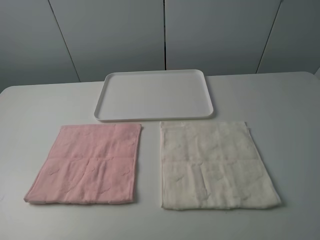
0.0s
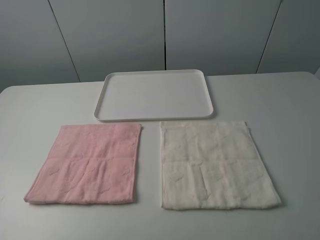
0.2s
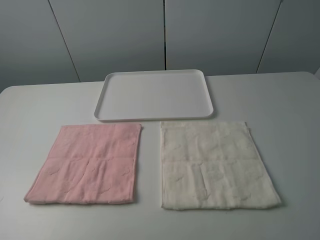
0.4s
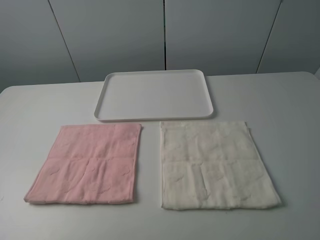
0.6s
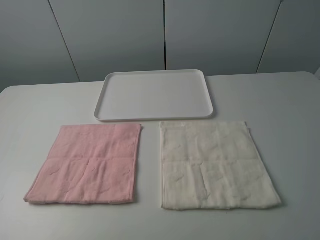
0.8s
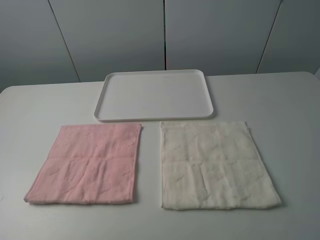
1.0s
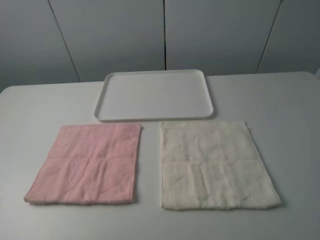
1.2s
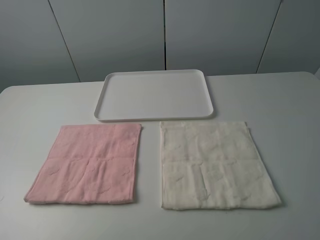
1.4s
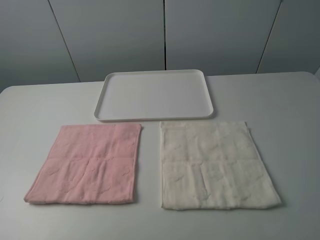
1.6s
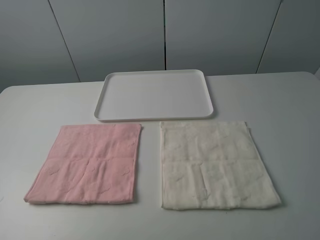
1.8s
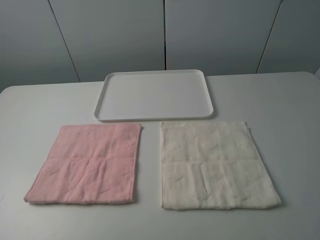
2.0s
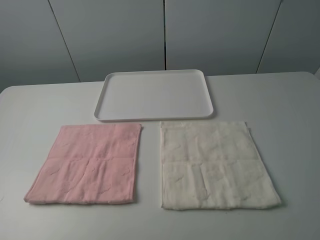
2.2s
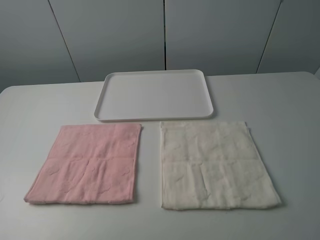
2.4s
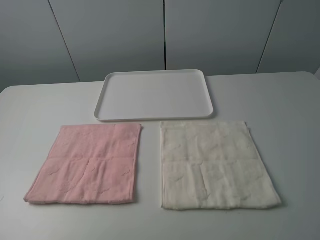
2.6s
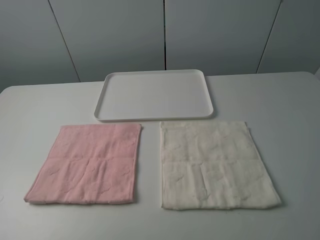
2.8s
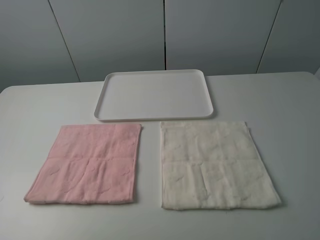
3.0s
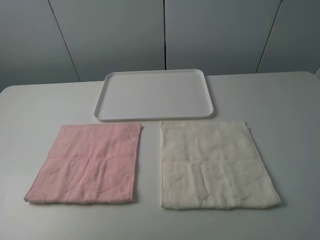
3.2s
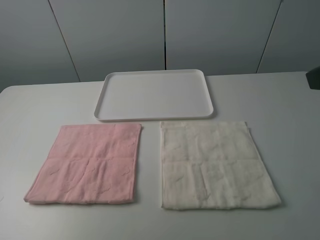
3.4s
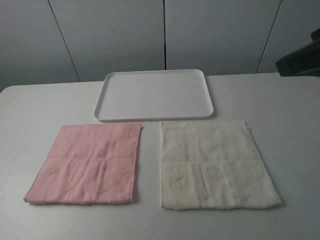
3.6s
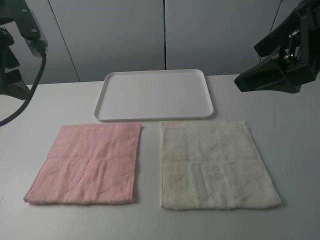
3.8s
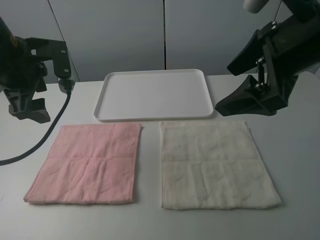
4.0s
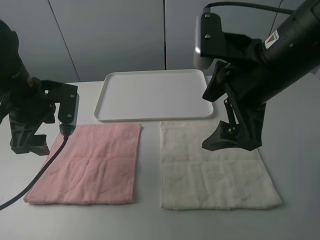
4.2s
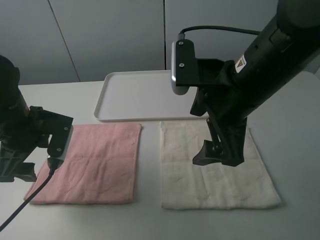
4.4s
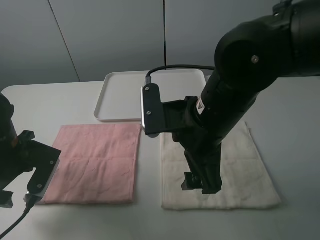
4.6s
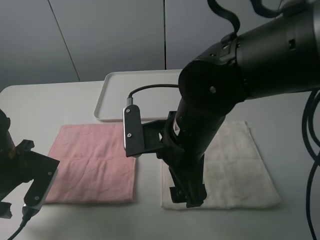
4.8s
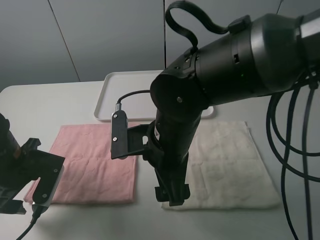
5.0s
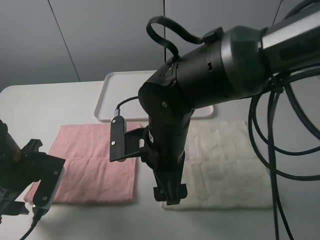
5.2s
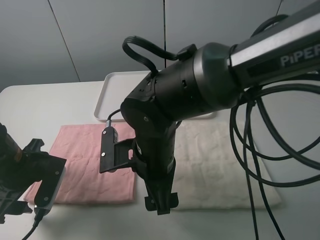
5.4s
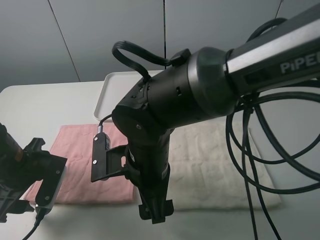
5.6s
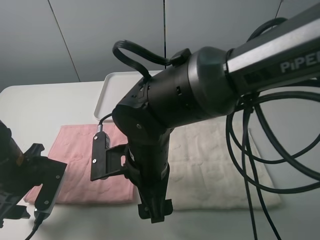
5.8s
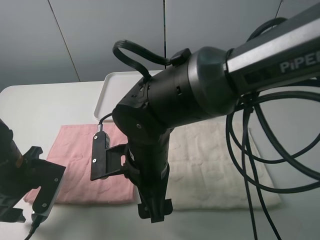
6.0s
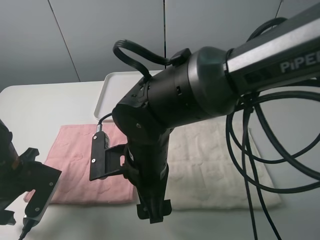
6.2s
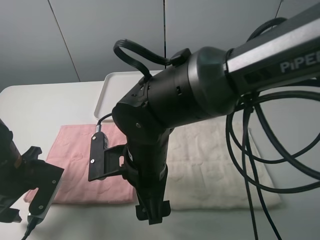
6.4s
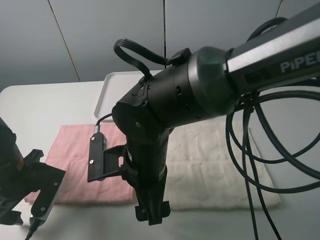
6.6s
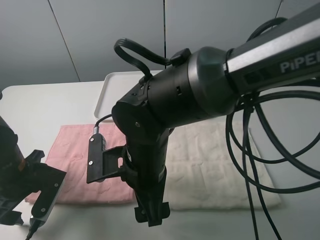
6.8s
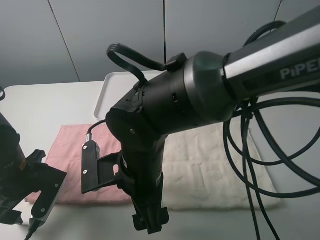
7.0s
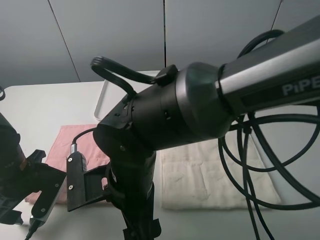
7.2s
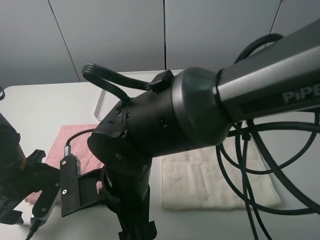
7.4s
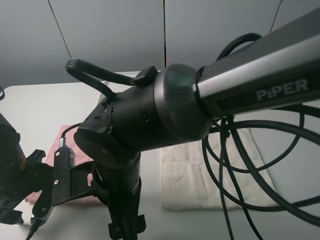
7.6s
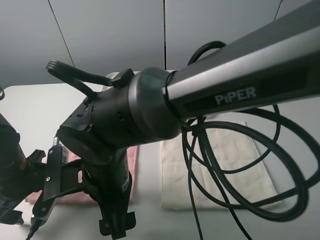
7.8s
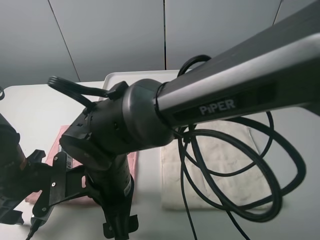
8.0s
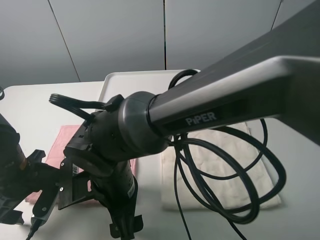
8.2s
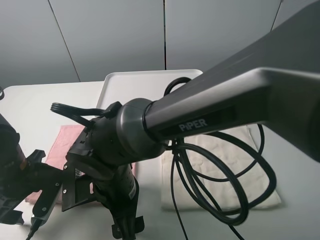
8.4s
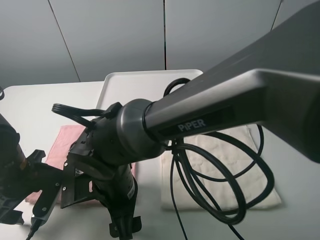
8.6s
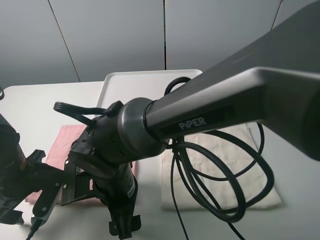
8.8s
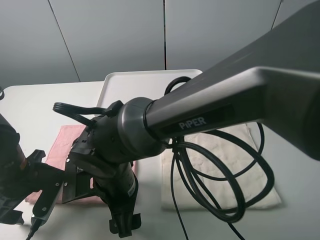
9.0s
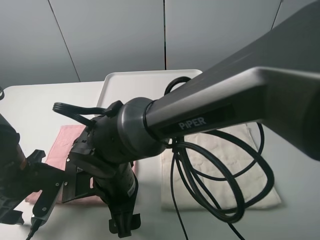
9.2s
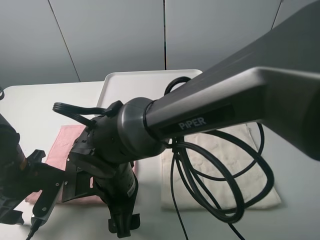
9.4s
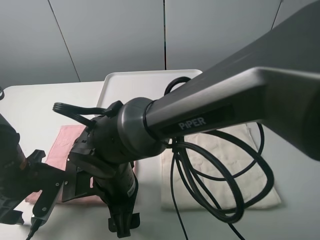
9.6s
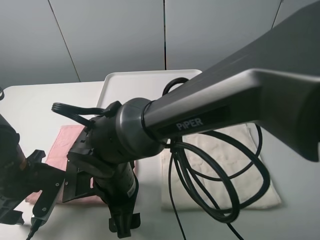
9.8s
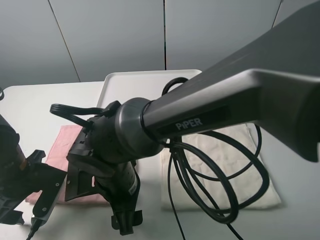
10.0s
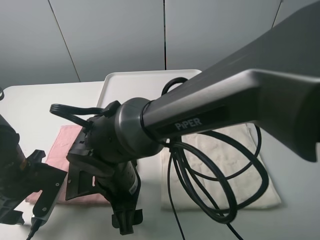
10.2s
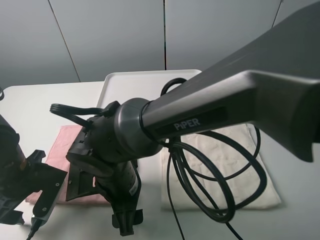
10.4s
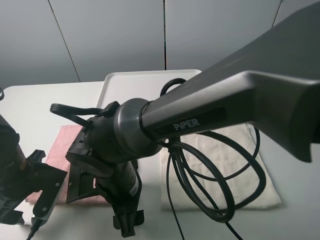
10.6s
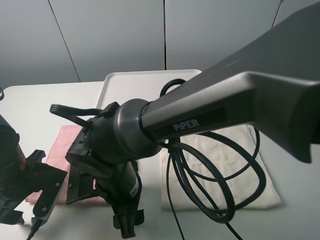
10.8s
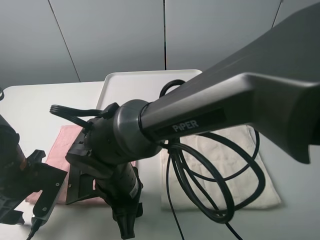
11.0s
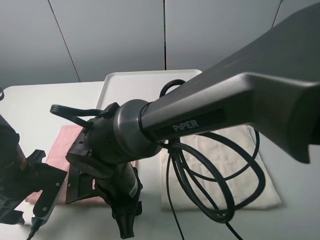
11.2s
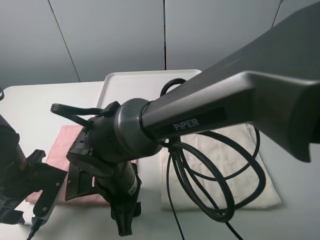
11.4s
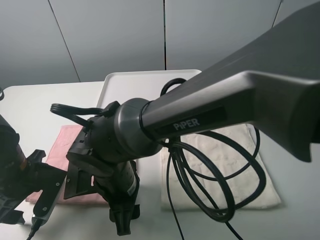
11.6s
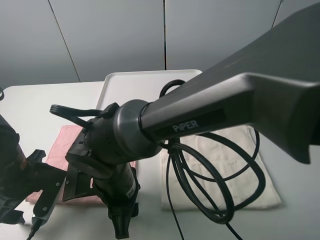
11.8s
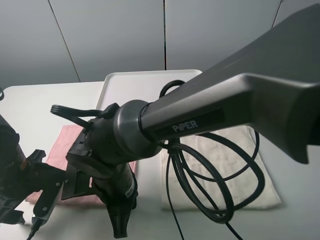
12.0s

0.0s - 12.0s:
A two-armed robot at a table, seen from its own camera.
Task of the whole recording: fold one of the towels by two grippers and place it on the tray,then fold another towel by two grippers and place it on the folded towel.
0.0s - 1.6s: The two grippers keep their place.
3.0s - 4.4s: The right gripper travels to the left, forward and downward by approximately 25 cm; the left gripper heads forward and downward, covering roughly 25 cm.
4.4s - 6.0s: The left gripper heads downward, covering about 5 cm, while the right gripper moves to the left and downward, roughly 15 cm.
6.0s - 7.6s: The right gripper changes place by some 5 cm.
7.6s - 9.0s: The right gripper moves approximately 5 cm.
9.0s - 10.4s: The grippers move only a little.
10.4s - 12.0s: The right gripper closes.

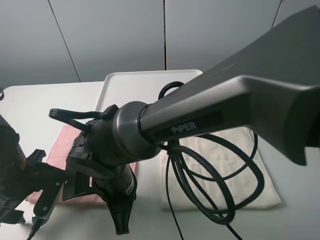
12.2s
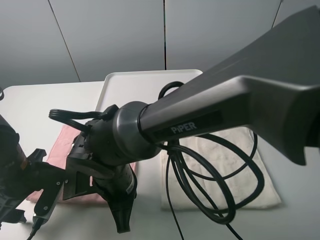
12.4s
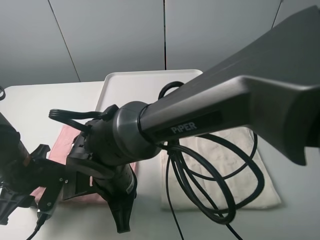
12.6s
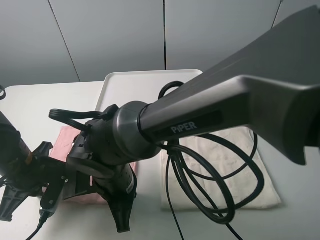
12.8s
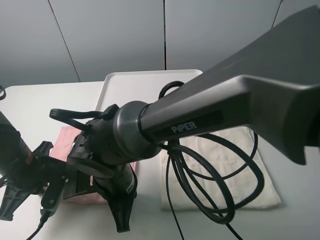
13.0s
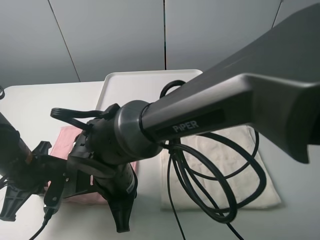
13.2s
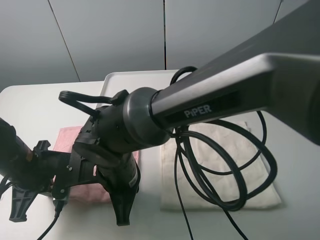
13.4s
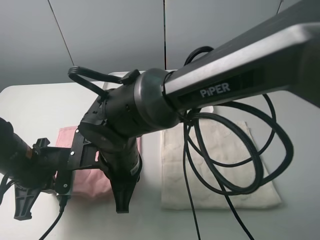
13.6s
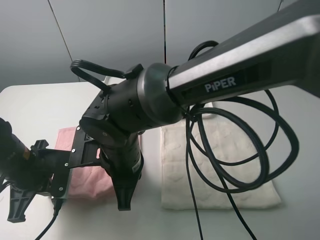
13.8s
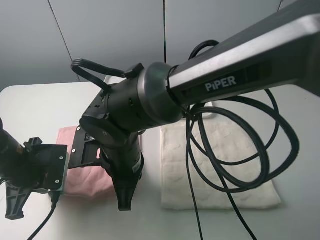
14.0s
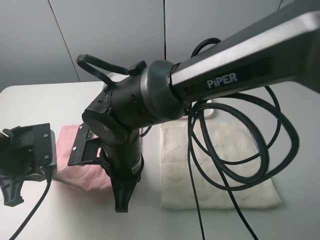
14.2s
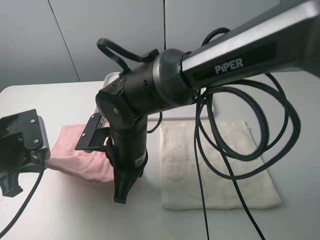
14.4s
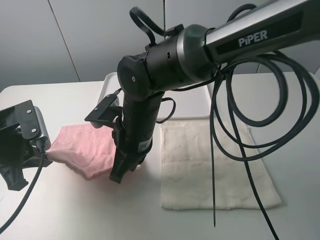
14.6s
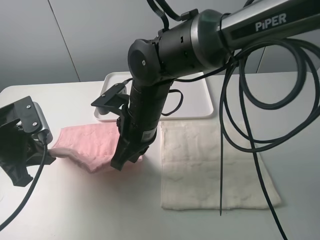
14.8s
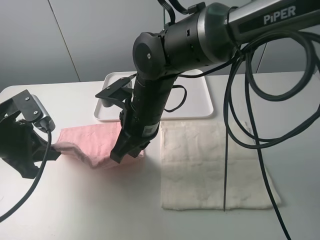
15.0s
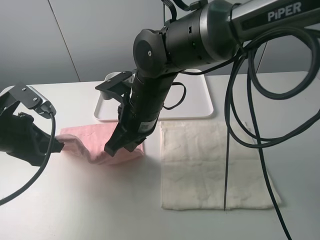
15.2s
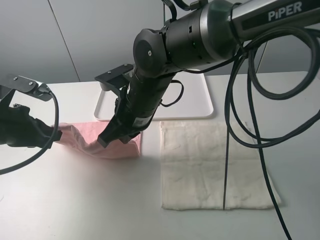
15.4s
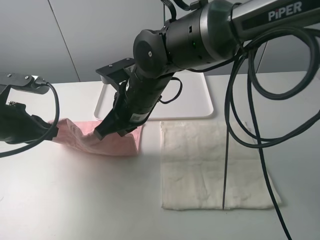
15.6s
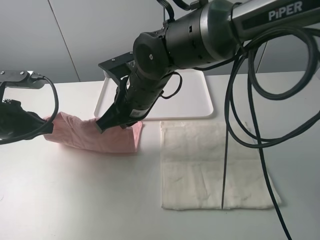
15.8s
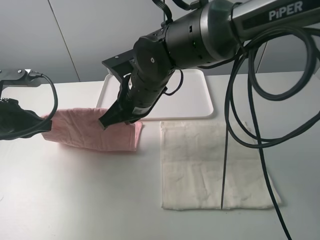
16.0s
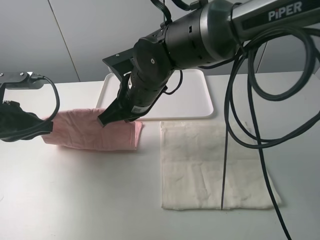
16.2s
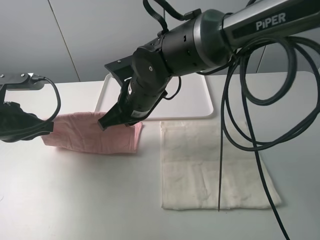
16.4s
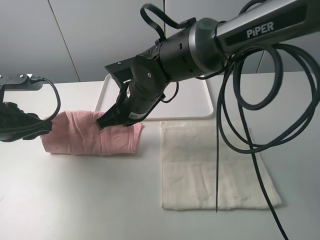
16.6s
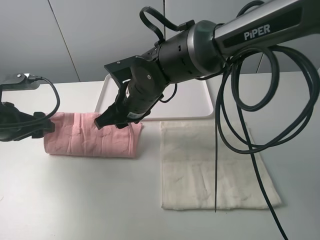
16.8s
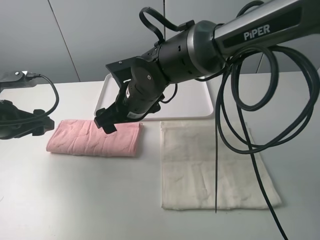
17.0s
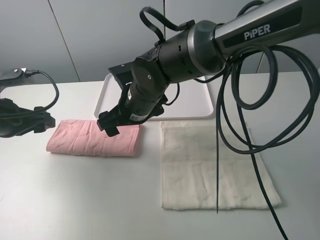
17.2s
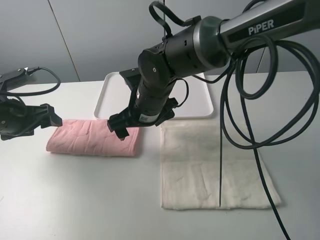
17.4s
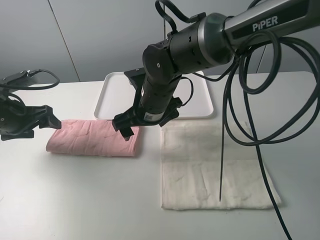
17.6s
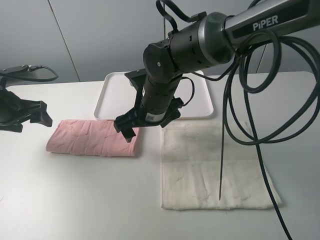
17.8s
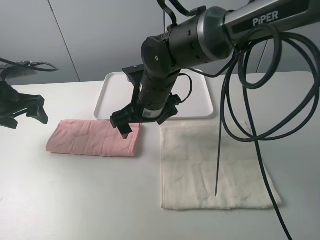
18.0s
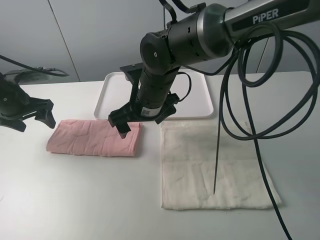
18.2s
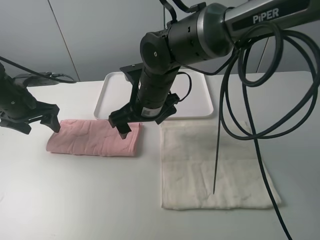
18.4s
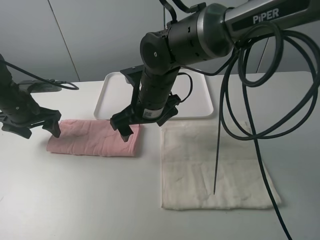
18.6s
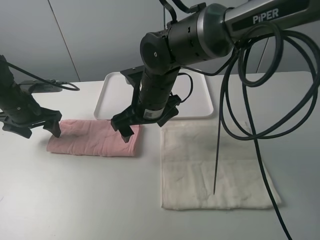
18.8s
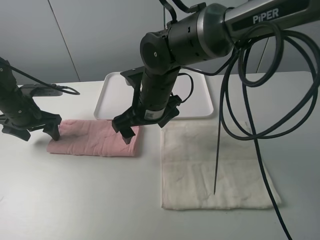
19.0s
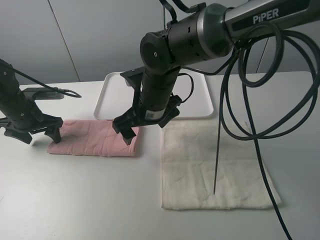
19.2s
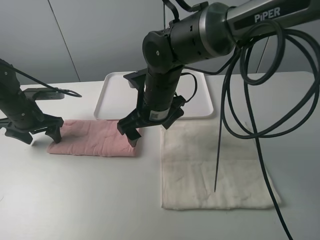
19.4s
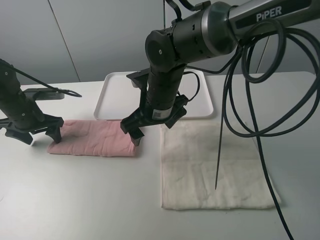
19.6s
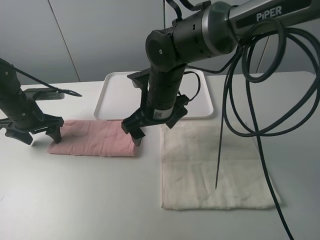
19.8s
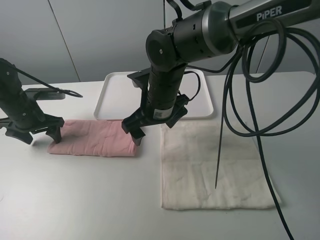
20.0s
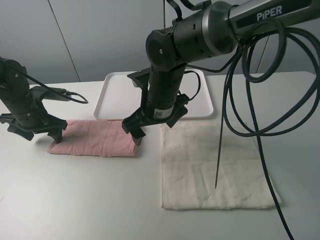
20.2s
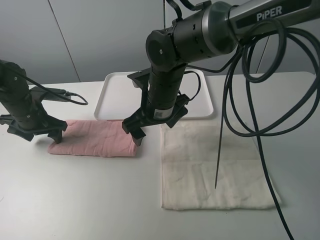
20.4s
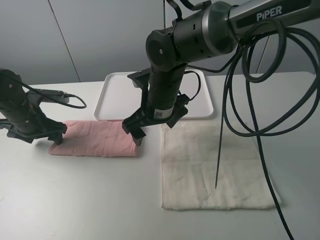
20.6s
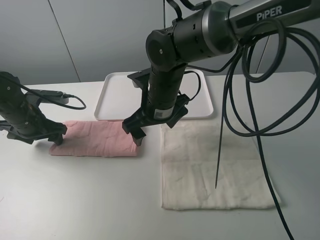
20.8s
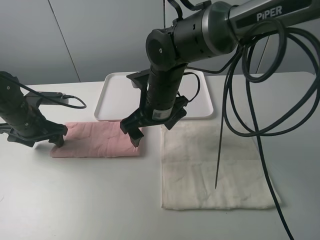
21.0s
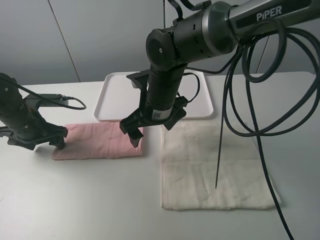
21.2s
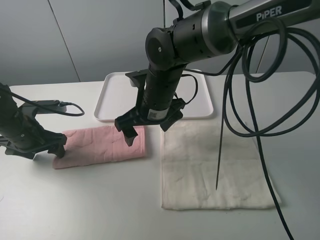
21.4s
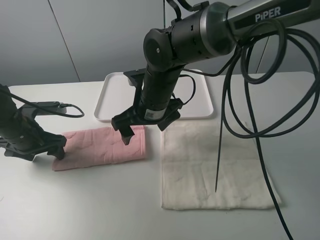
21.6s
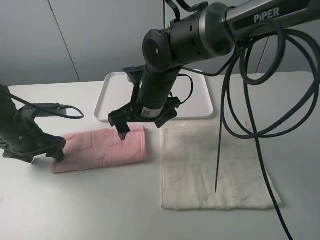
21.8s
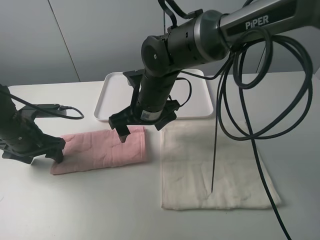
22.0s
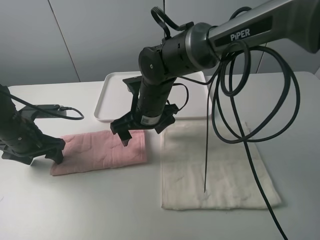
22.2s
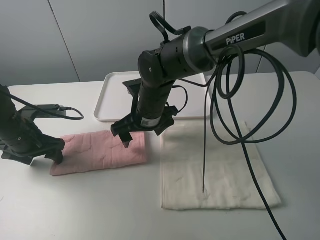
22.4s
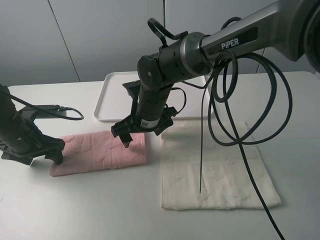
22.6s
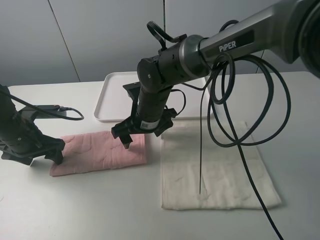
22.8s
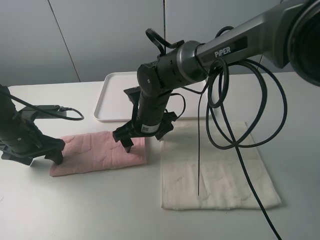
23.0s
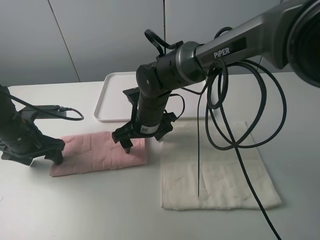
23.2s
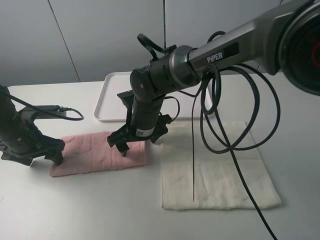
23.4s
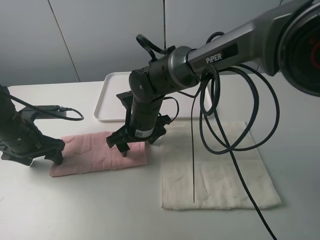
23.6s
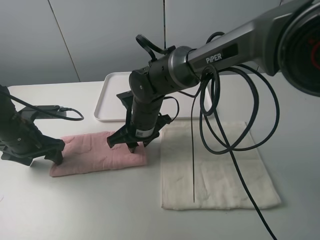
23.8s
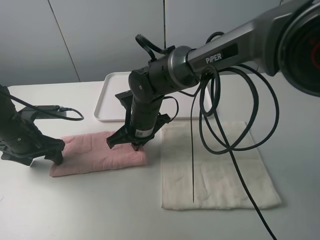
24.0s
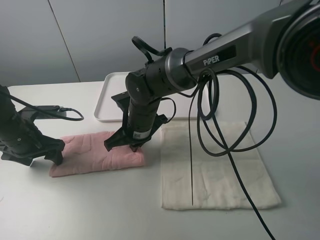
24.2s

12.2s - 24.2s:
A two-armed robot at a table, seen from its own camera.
Task of the whole recording: fold one of the towels by two grippers and place it on the tray,then fold another towel by two grippers and place it on the folded towel.
Step, 13.0s - 16.8s: Fold the pink towel upwards with the left gripper.
Step, 17.2s - 19.4s: Press the pink towel with the left gripper.
Step, 19.6s - 24.2s: Grasp the pink towel with the right gripper.
12.2s - 13.8s: The left gripper closes up.
13.8s - 15.2s: The left gripper moves upward, approximately 5 cm, while the right gripper is displaced forward by some 5 cm.
15.2s - 16.6s: The left gripper opens up.
16.6s - 18.2s: The left gripper goes approximately 10 cm forward, and opens up. Meanwhile the right gripper opens its fingers.
18.2s - 19.8s: The left gripper is displaced downward by some 5 cm.
19.8s - 21.2s: The left gripper ends up some 5 cm from where it was.
21.2s - 22.6s: The right gripper ends up some 5 cm from where it was.
22.6s - 24.2s: The right gripper closes its fingers.
